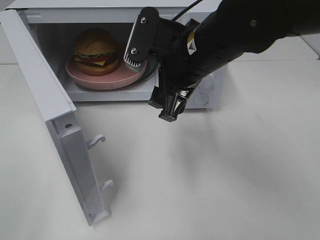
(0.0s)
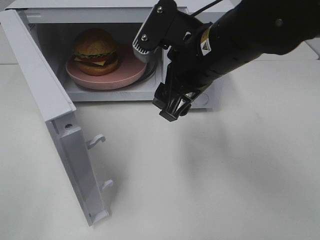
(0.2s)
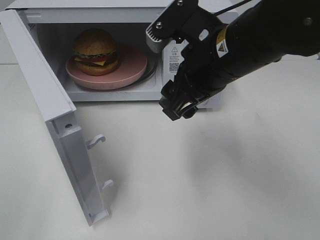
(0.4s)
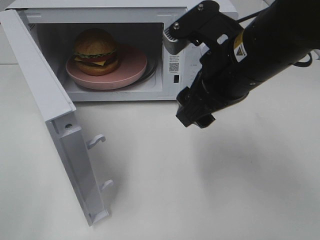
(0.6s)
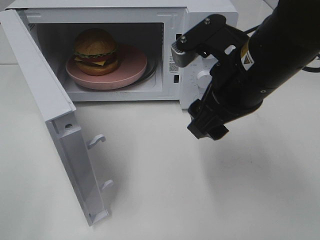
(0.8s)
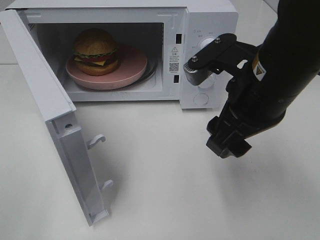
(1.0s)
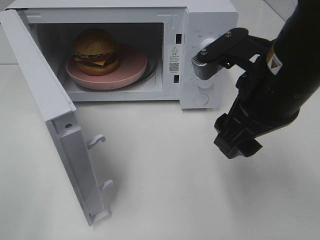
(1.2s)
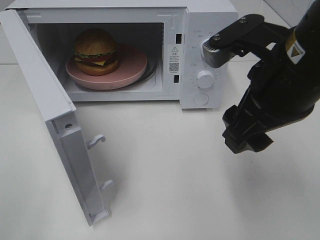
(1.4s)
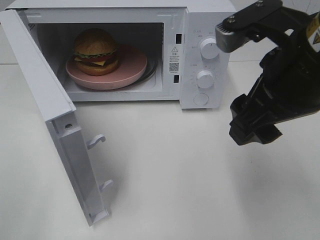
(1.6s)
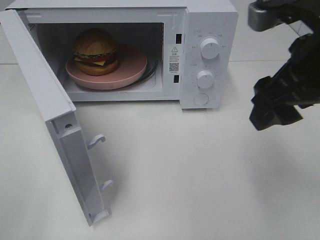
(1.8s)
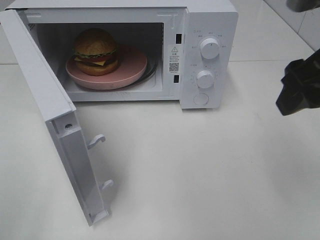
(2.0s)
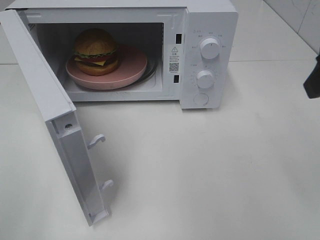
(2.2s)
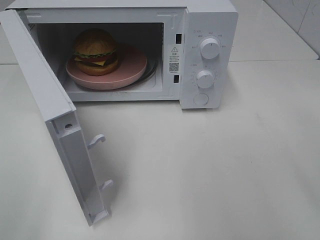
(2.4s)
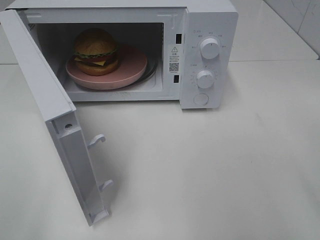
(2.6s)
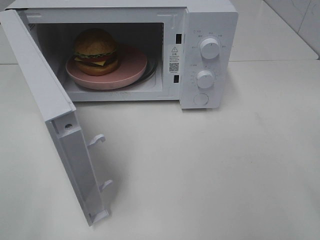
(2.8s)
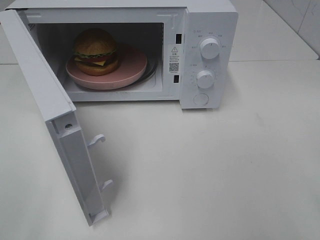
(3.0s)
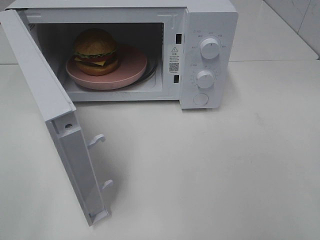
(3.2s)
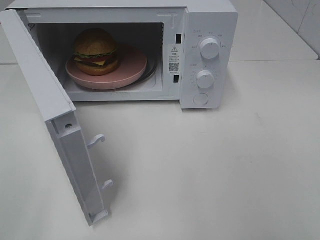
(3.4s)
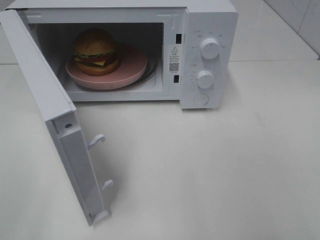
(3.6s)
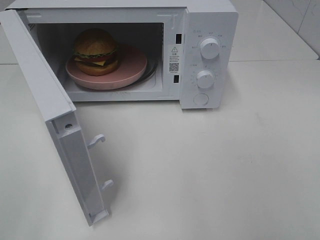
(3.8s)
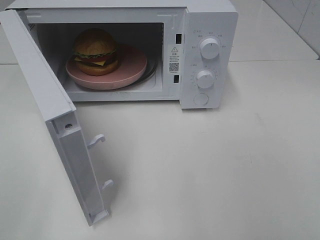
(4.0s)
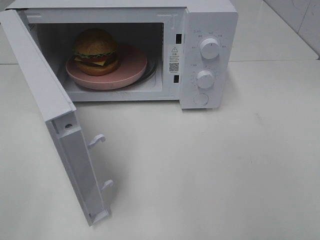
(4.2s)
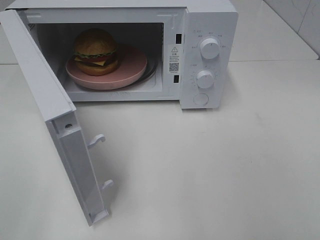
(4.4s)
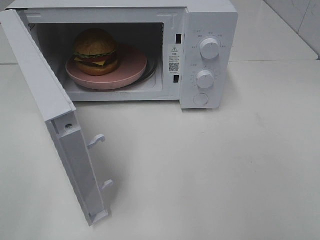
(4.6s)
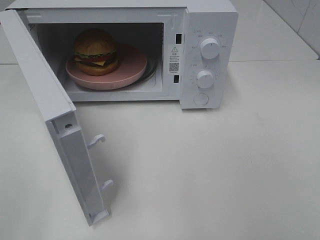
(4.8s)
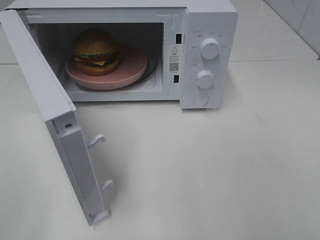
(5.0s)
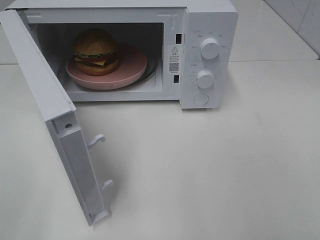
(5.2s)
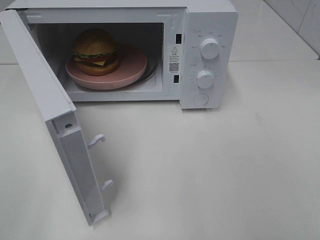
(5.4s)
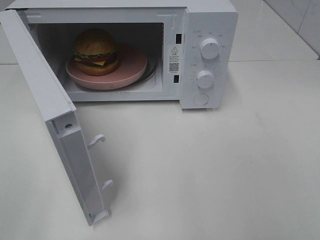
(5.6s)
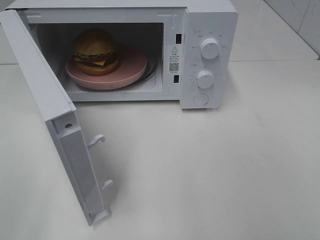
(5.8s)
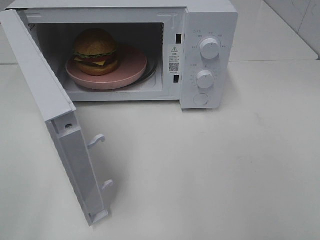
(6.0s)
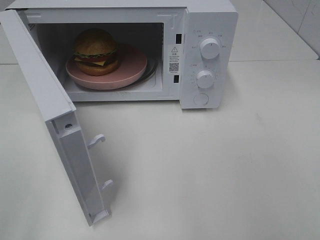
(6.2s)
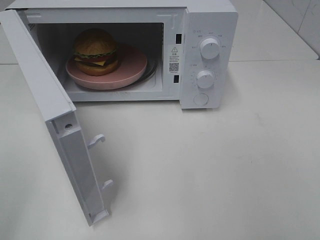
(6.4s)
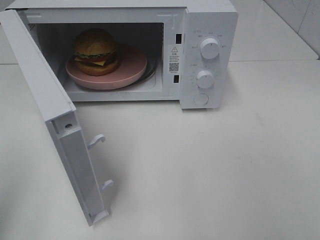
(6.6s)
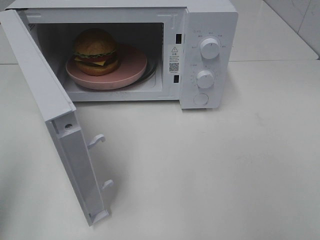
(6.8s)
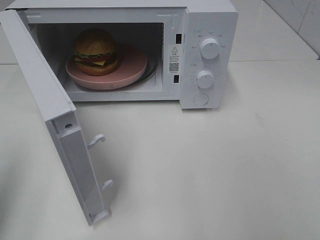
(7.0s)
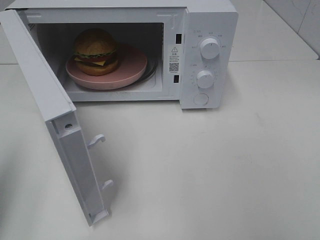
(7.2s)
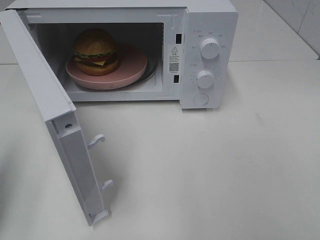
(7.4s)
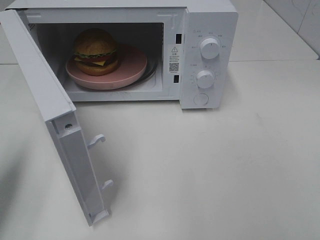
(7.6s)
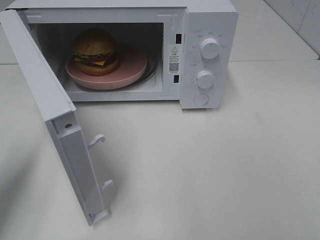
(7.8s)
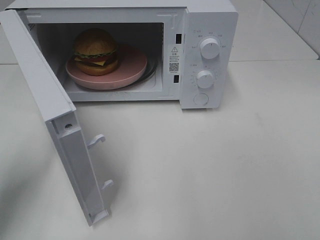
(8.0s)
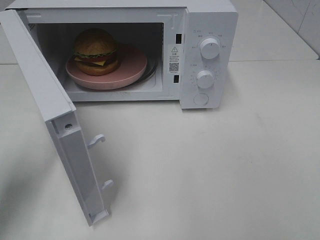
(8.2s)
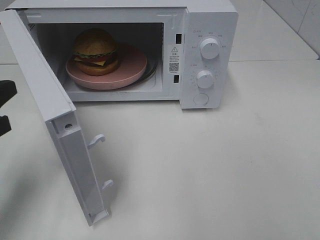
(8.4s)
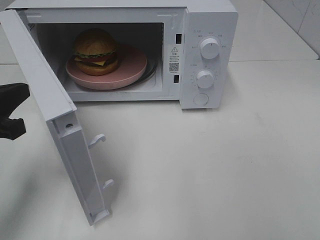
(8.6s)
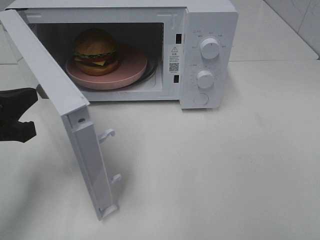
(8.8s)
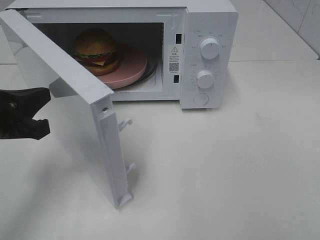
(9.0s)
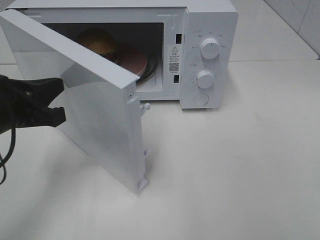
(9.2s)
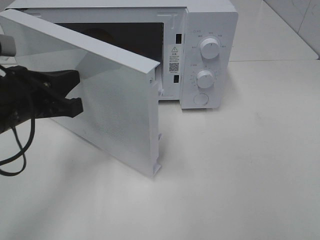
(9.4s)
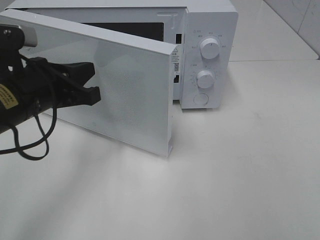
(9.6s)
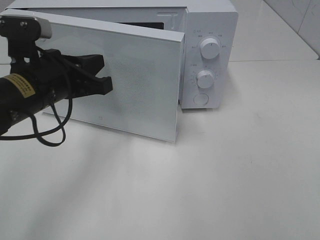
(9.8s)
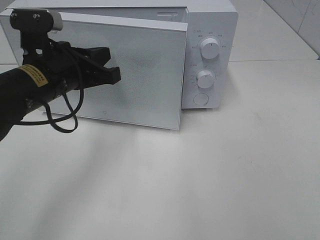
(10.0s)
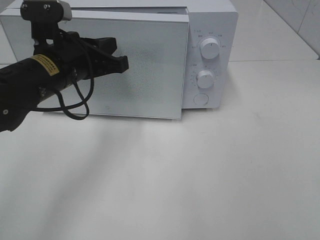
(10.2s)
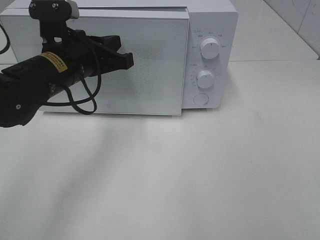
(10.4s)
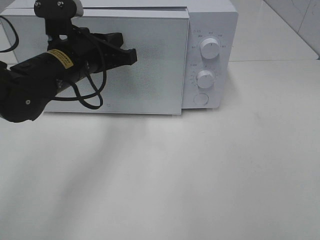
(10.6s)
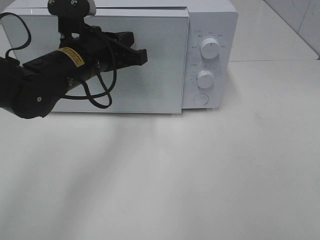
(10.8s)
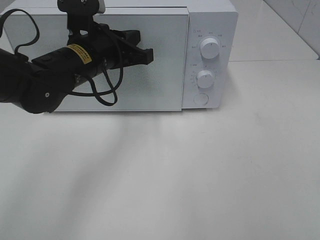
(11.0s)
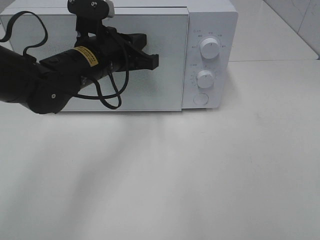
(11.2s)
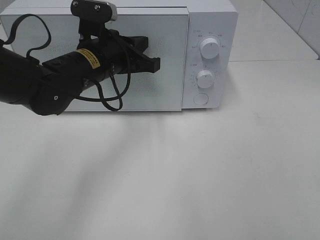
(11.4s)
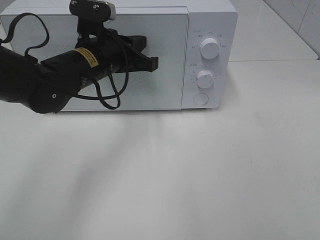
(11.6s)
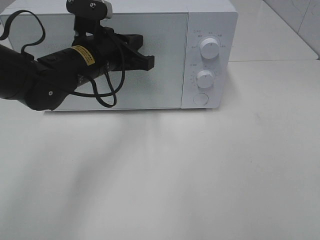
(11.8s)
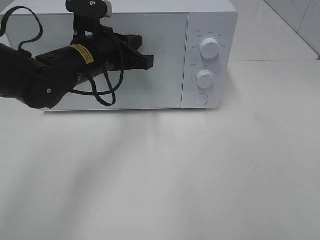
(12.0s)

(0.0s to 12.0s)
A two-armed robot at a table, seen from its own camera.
Task of the whole recording: Heat the burger.
0.0s - 1.6s: The right gripper moves to the right, backward and upward, roughly 15 cm.
1.6s - 3.0s: The right gripper moves to the right and backward, some 15 cm.
4.4s - 6.0s: Neither gripper changes place.
6.0s - 7.6s: The left gripper goes some 15 cm forward, and closes its fingers.
7.6s - 9.0s: The left gripper goes some 10 cm to the right.
9.0s - 10.4s: The left gripper is displaced forward and to the right by some 15 cm.
10.4s - 12.0s: There are only small adjustments of the grippers.

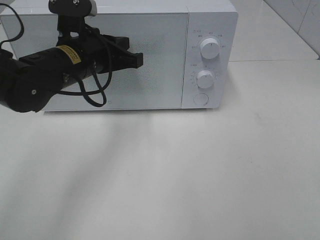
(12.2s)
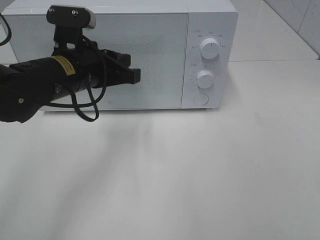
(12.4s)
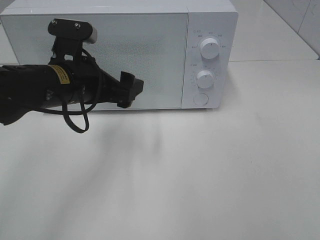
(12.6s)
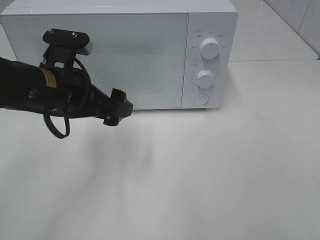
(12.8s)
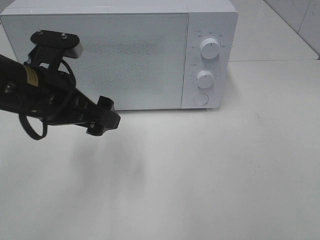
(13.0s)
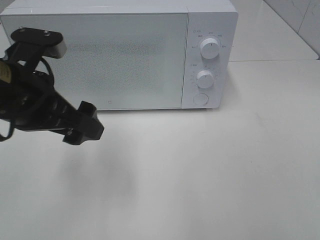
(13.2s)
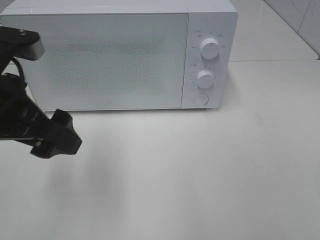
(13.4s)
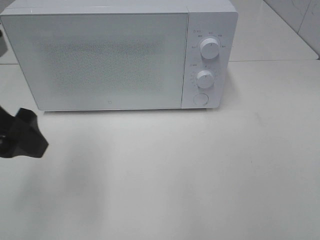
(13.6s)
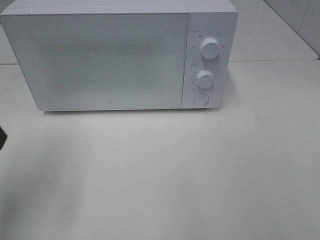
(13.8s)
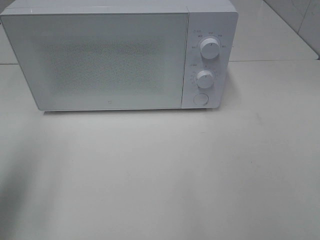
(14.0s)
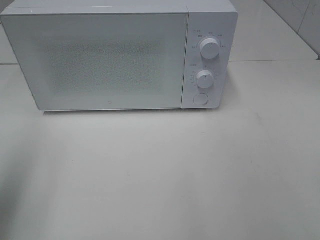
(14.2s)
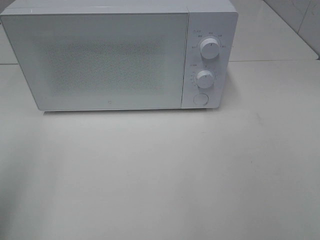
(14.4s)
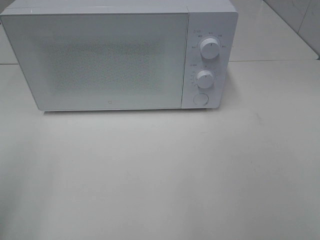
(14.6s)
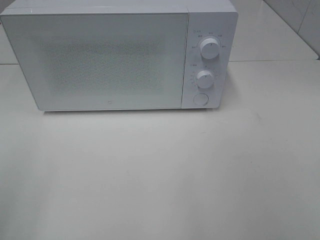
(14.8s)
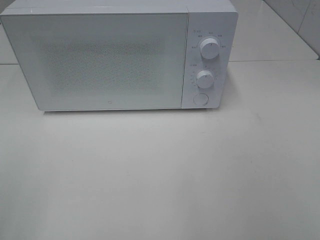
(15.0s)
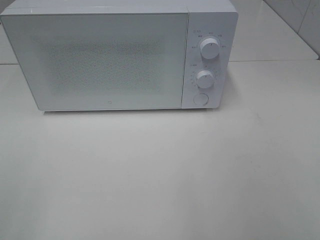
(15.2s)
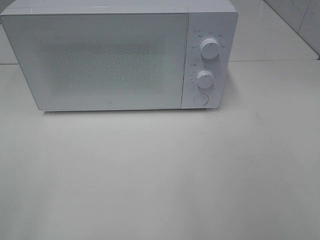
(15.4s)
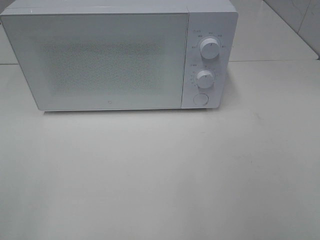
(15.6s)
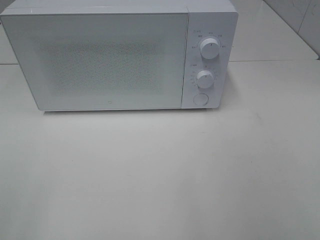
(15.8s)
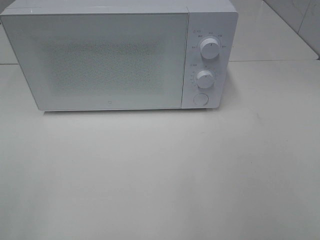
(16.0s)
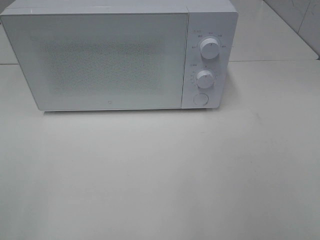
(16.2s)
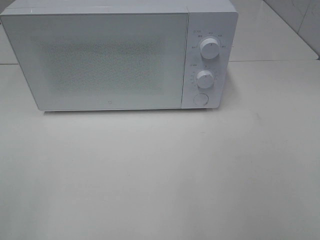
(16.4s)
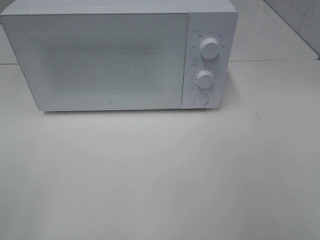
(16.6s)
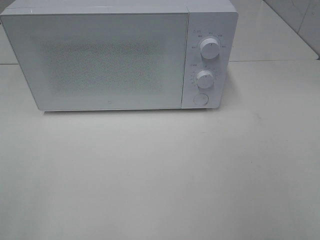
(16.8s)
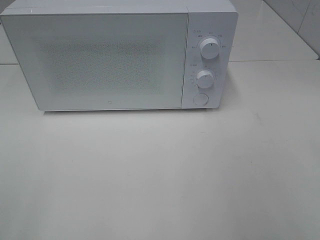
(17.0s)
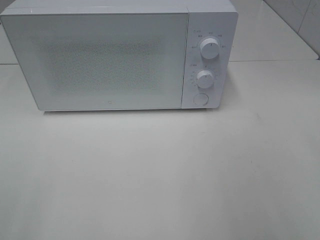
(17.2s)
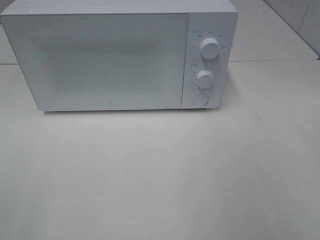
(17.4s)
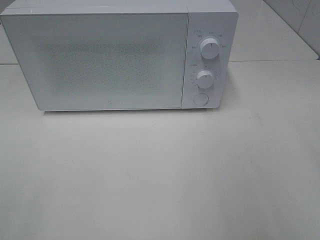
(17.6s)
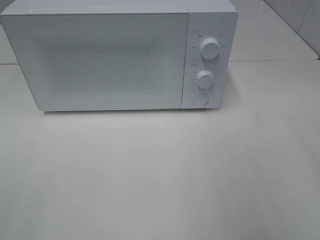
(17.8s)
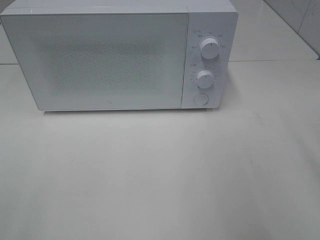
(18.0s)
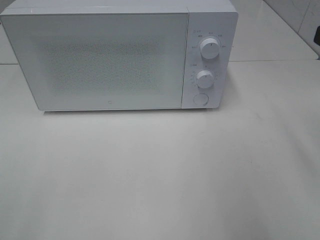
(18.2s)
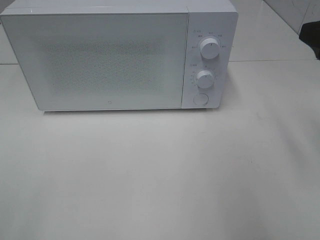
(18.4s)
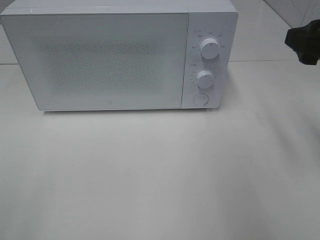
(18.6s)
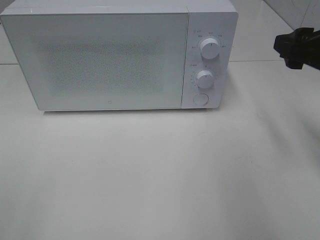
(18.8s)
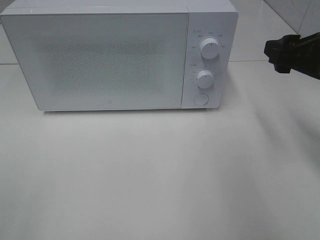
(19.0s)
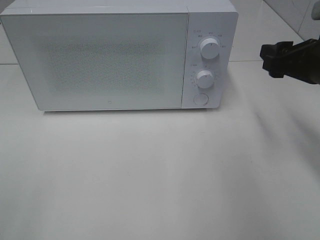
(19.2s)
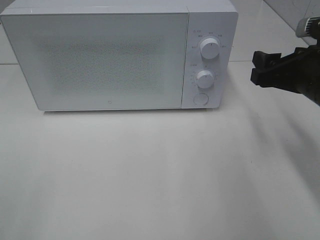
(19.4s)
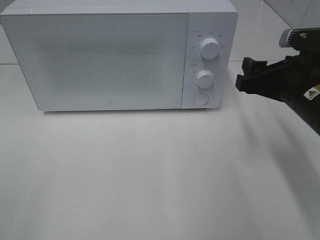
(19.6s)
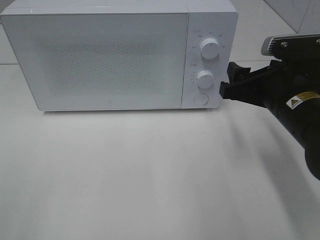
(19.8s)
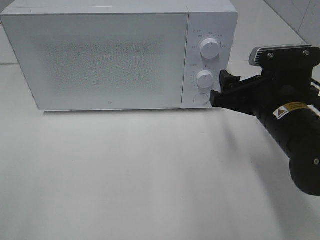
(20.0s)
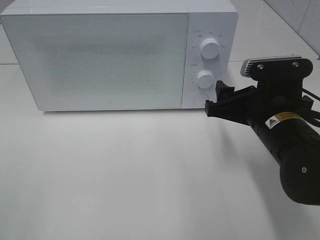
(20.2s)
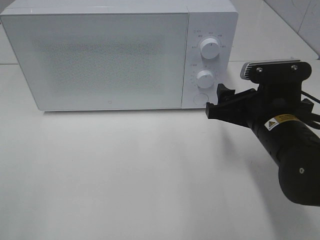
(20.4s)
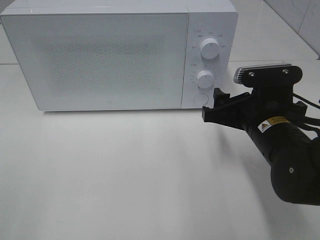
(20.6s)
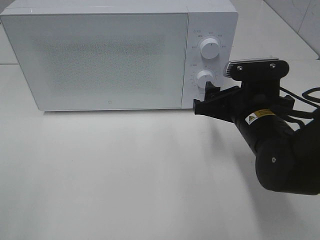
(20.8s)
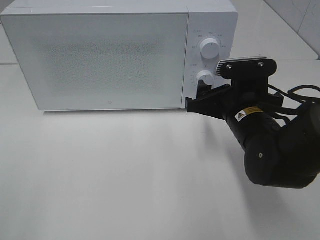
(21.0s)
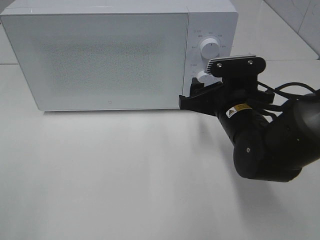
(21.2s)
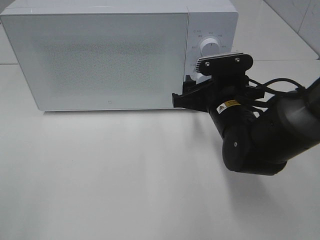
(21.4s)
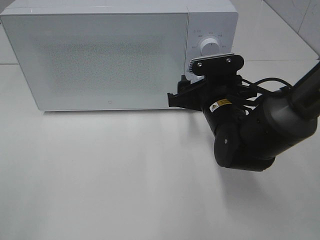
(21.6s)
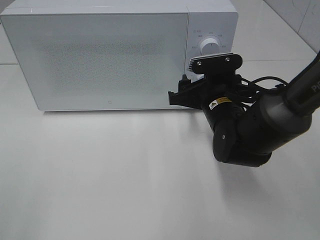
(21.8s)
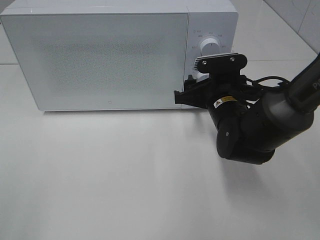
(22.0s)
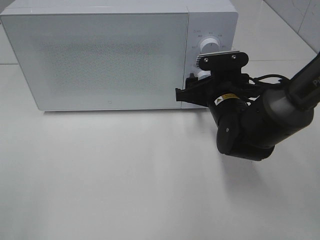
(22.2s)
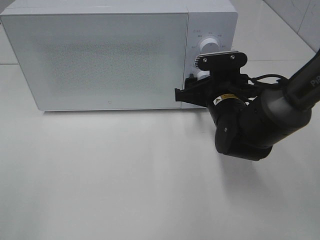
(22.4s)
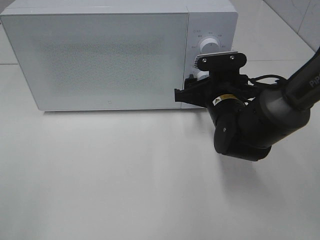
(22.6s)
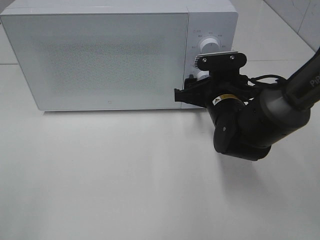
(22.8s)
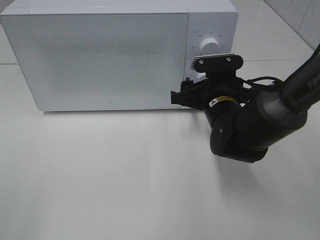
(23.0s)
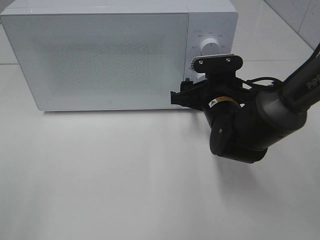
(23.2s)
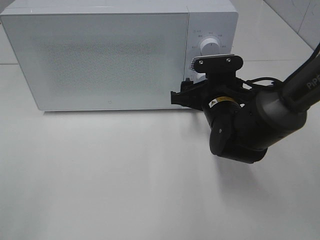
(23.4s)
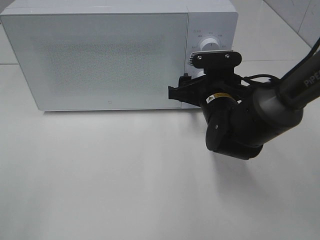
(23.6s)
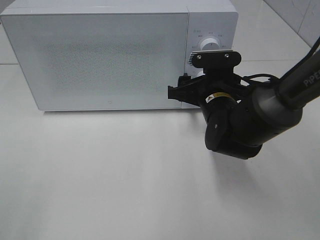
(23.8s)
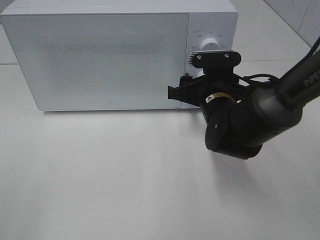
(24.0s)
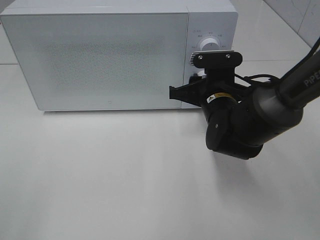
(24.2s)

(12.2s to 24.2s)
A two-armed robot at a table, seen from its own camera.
Task of the whole recording: Heat the burger.
12.2s - 13.8s: The left gripper shifts roughly 20 cm to the left, backward and upward, and opens its fingers.
13.8s - 15.2s: The left gripper shifts some 20 cm backward.
18.2s - 19.8s: The right gripper is displaced downward, to the left and forward by about 15 cm.
19.8s - 21.2s: The right gripper heads to the left, covering approximately 5 cm.
21.2s - 22.6s: The grippers stay close to where they were, moving slightly.
22.6s - 24.2s: The right gripper closes its fingers.
